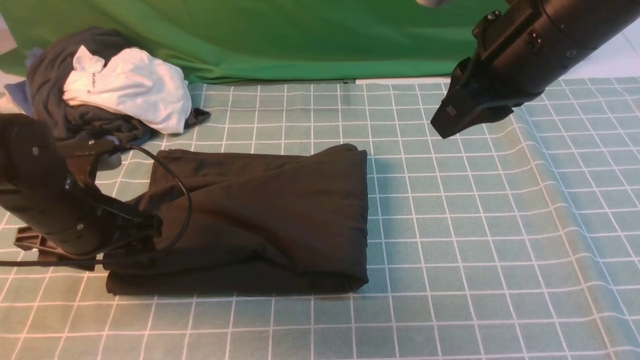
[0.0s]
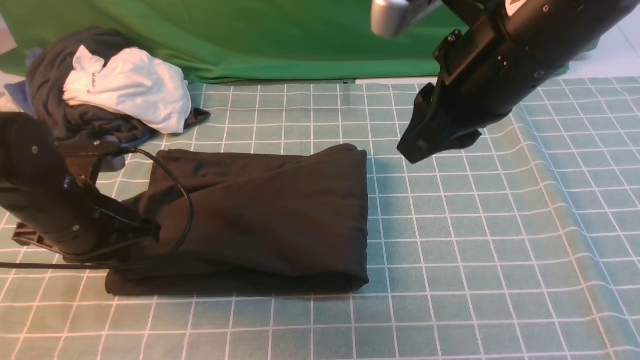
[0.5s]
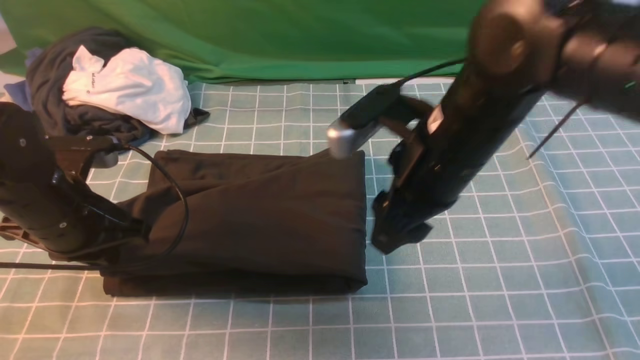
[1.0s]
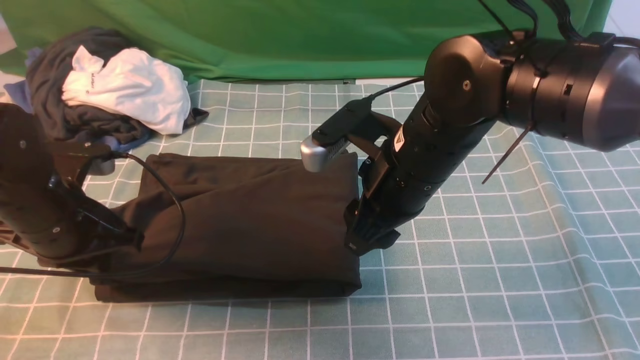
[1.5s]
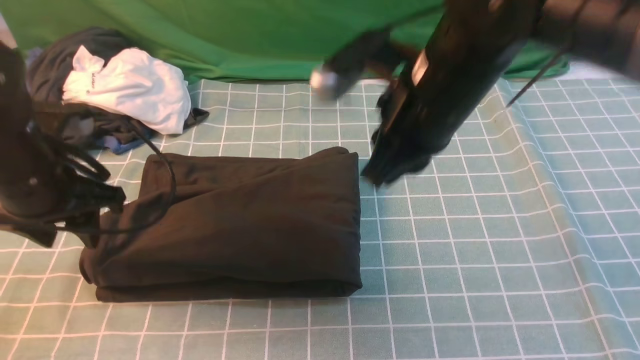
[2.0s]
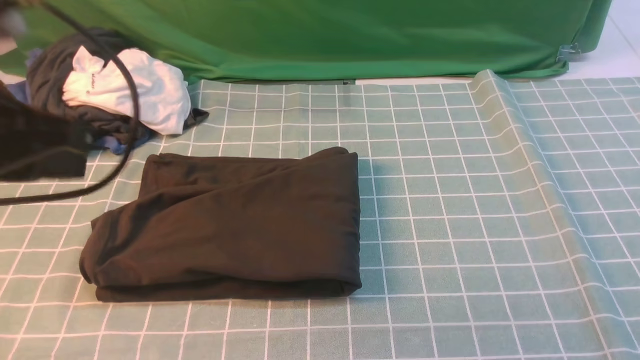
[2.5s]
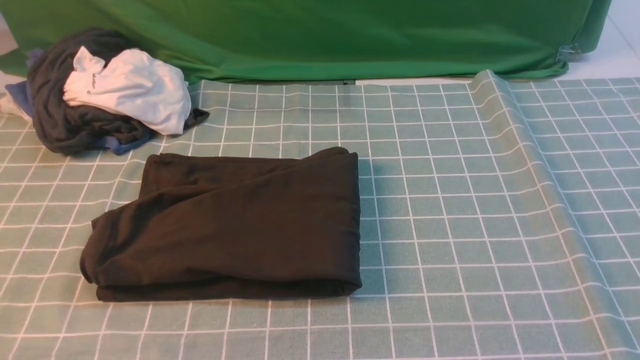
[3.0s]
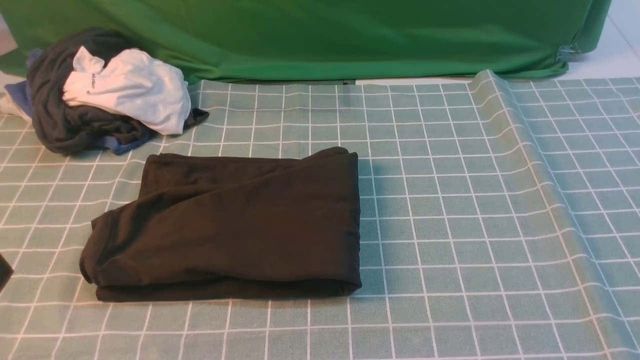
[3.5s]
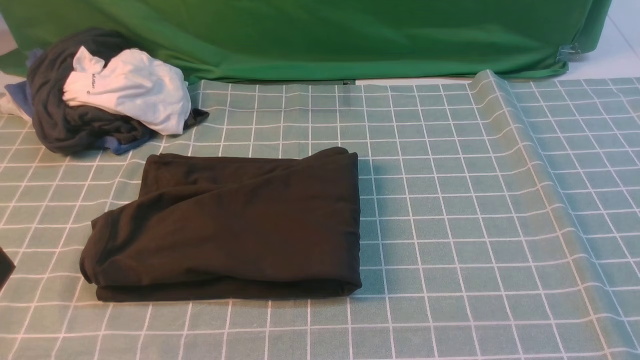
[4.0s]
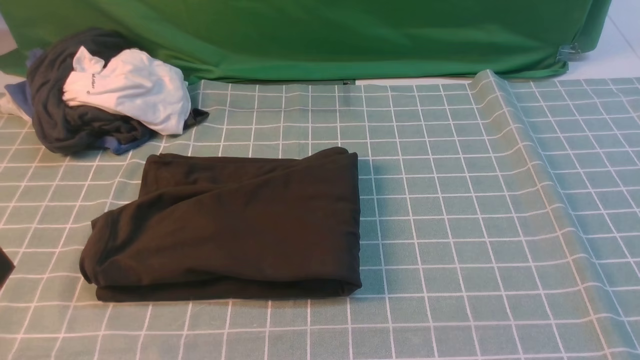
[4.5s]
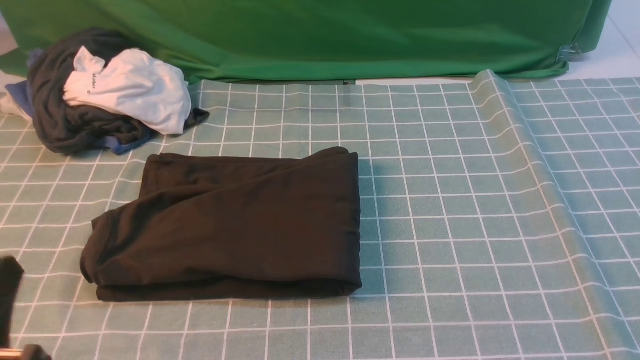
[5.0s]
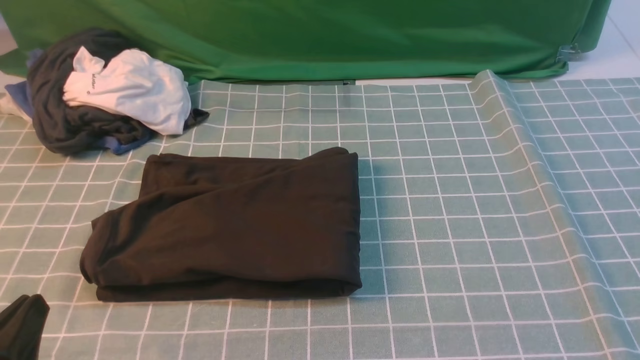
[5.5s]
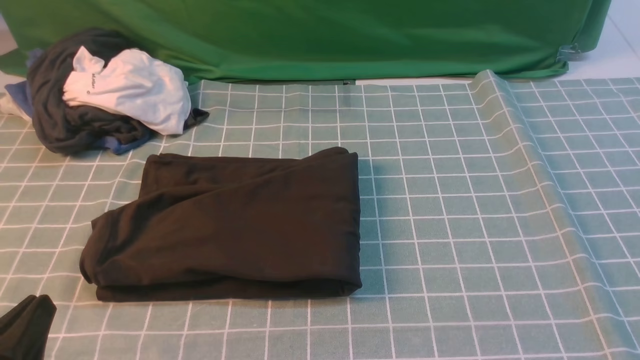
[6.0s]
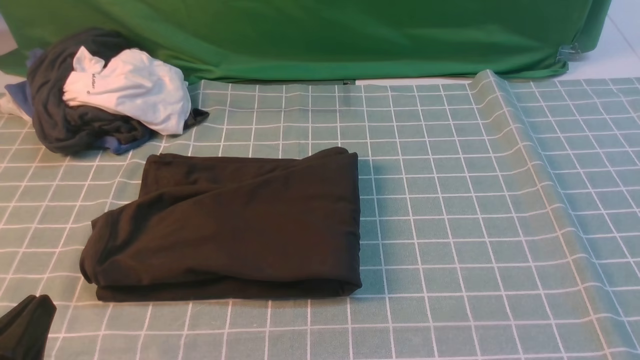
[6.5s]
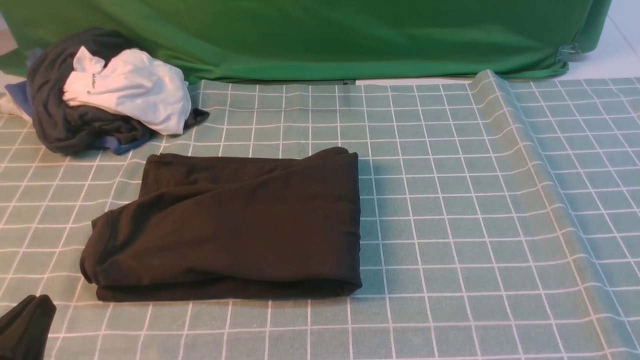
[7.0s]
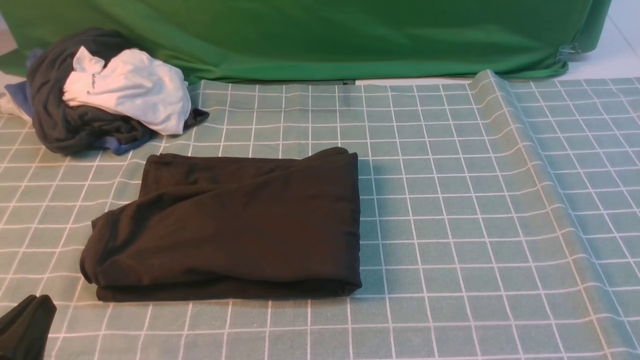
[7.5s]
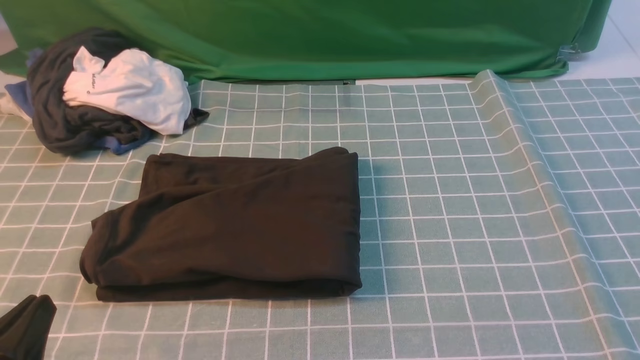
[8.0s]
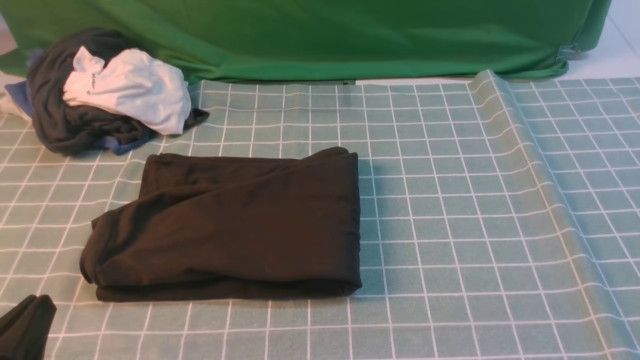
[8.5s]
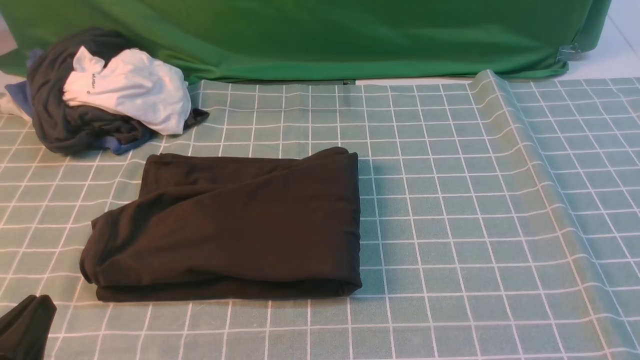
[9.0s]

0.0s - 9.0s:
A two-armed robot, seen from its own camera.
0.0s - 2.0s: The right gripper shifts roughly 10 cm to the left and downward, and opens, then closes again, while the left gripper ends up approximately 5 cm from where it was, and closes up.
2.0s - 4.5s: The left gripper is displaced backward by some 25 cm, and closes. Meanwhile the right gripper goes about 35 cm backward and to the right.
4.5s - 7.0s: The left gripper travels downward by approximately 10 cm.
